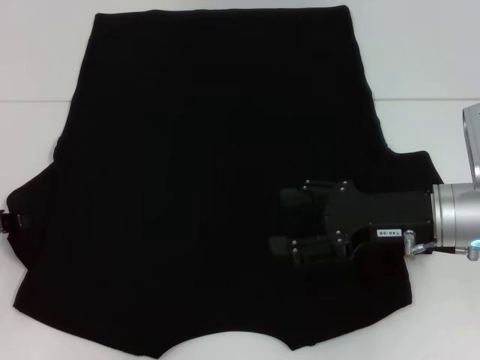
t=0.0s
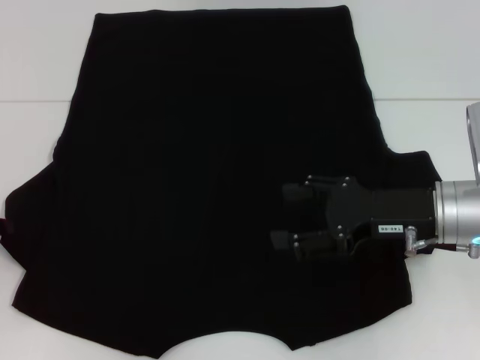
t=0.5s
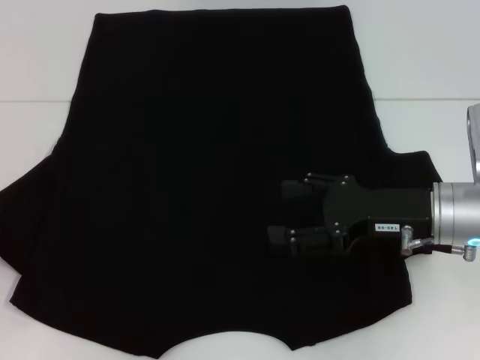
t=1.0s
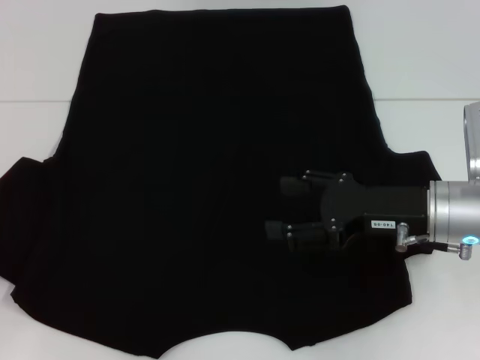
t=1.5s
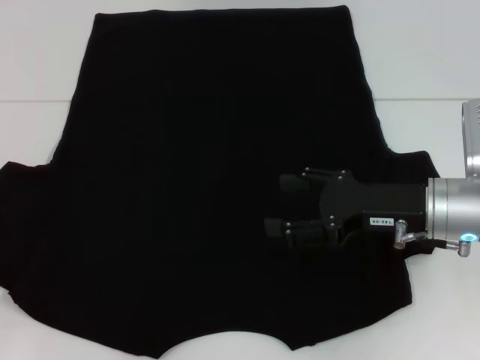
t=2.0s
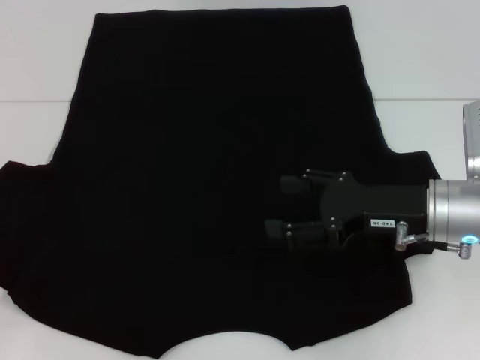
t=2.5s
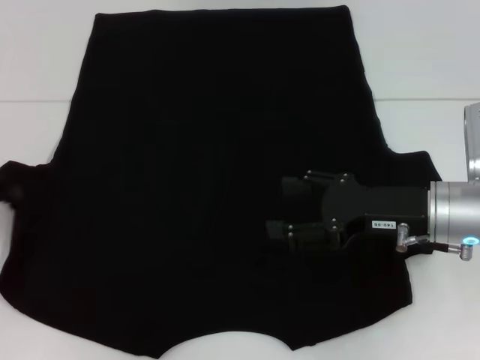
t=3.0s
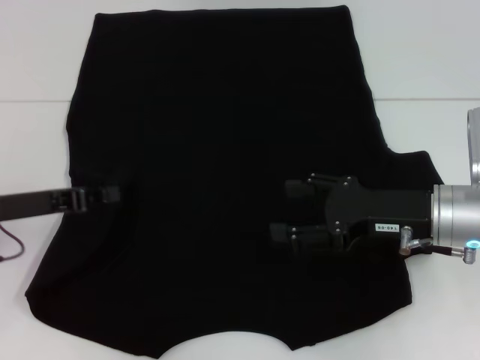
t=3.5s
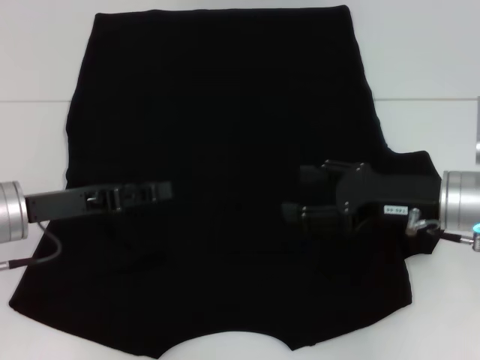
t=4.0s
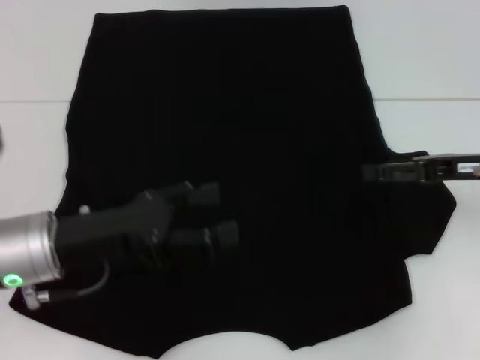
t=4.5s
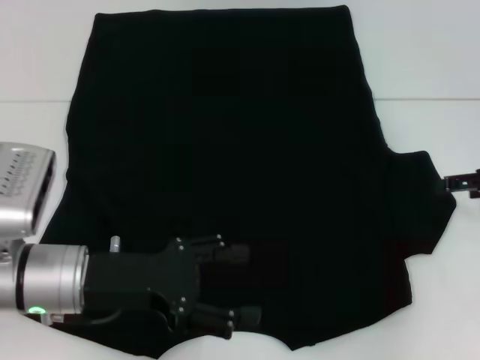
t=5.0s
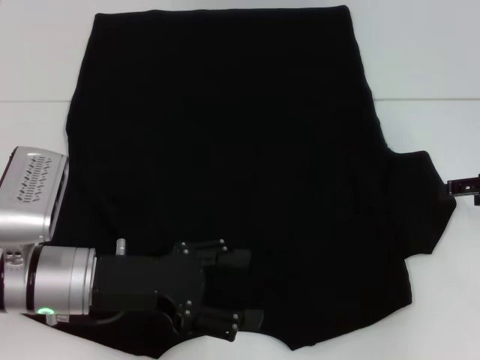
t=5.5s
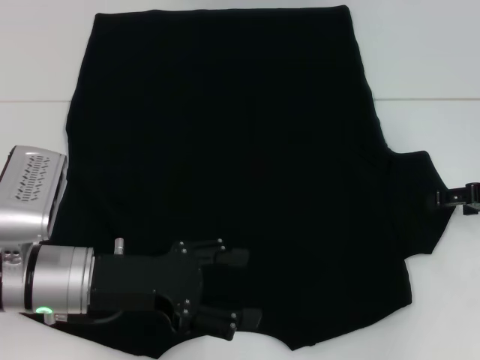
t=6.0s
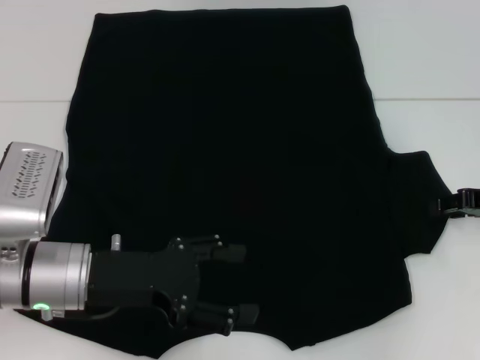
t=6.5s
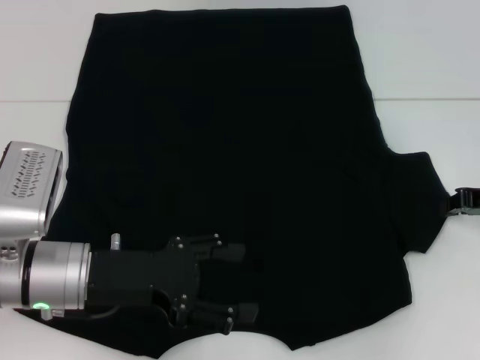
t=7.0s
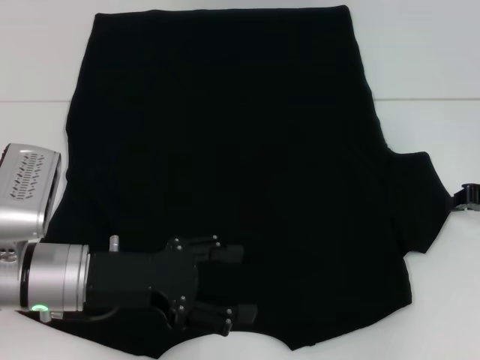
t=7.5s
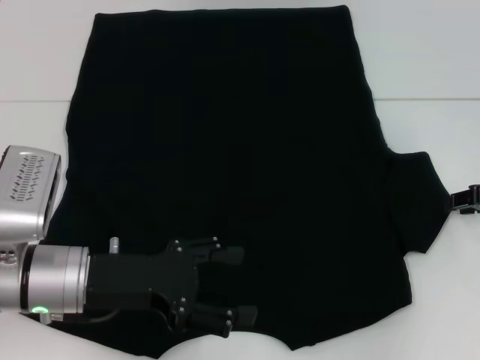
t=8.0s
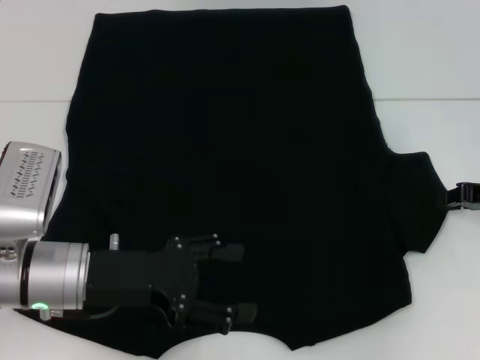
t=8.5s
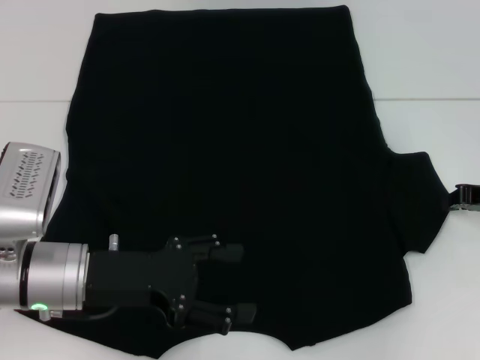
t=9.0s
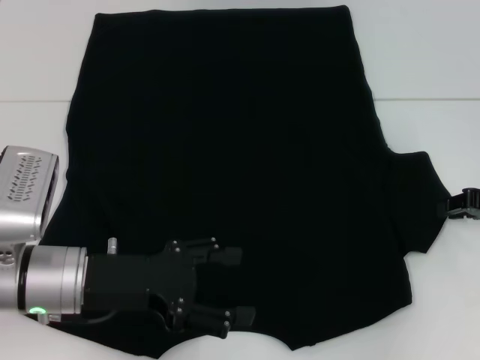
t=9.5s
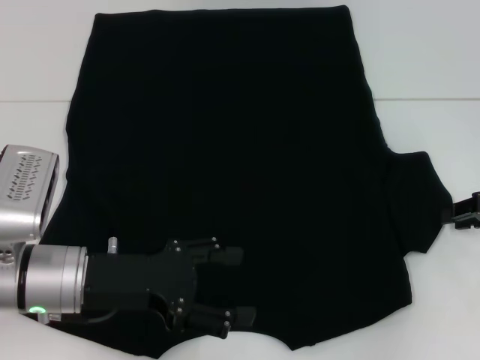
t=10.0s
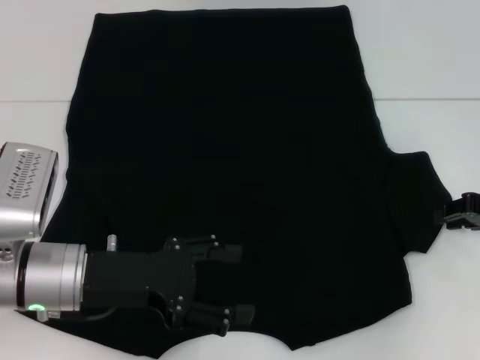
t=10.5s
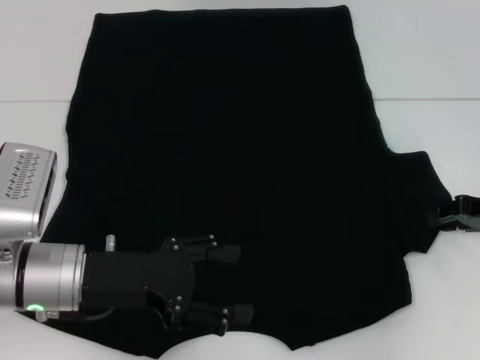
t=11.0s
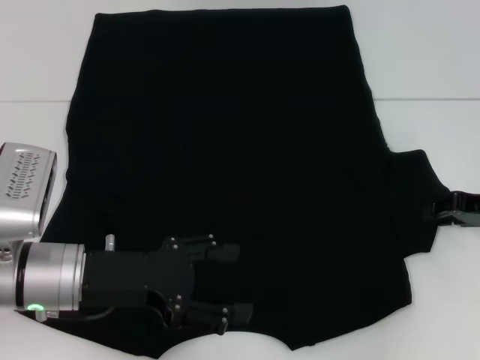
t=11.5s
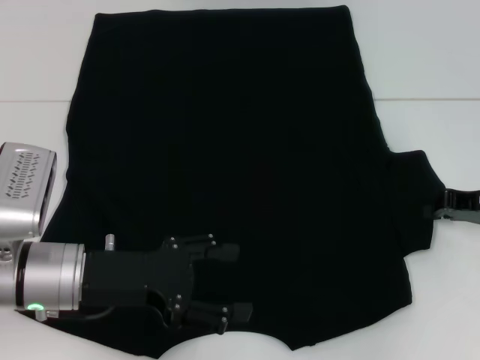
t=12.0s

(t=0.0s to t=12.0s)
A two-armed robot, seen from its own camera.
Step, t=0.0s - t=3.5s: Fold the bottom left sleeve with your left hand.
t=0.0s - t=2.0s: The left gripper shifts by roughly 5 cm, and closes up.
t=2.0s - t=4.0s: The left gripper moves to the right, roughly 15 cm.
t=4.0s - t=6.0s: The right gripper is displaced to the right by roughly 10 cm; the left gripper is displaced to the right by approximately 5 cm, and opens up.
t=6.0s - t=8.0s: The right gripper closes its fingers.
t=8.0s - t=12.0s: There are only small adjustments of the grippers.

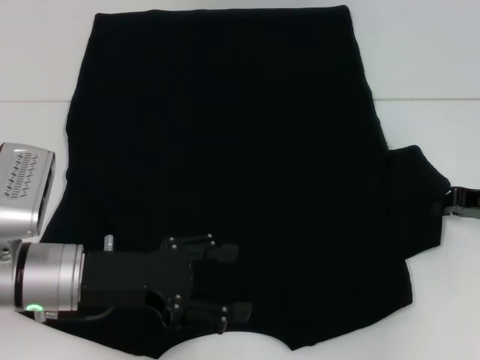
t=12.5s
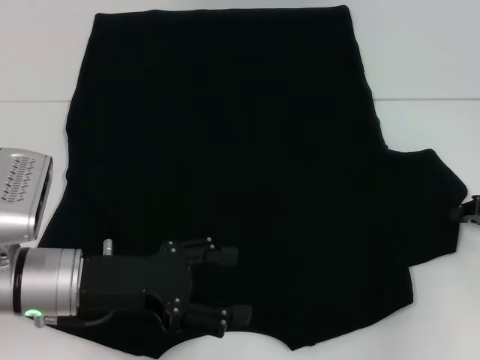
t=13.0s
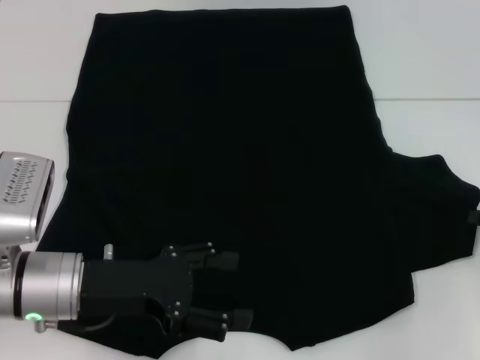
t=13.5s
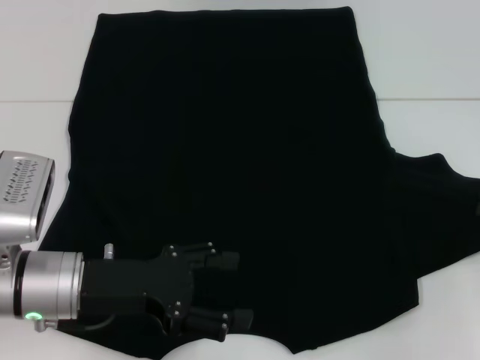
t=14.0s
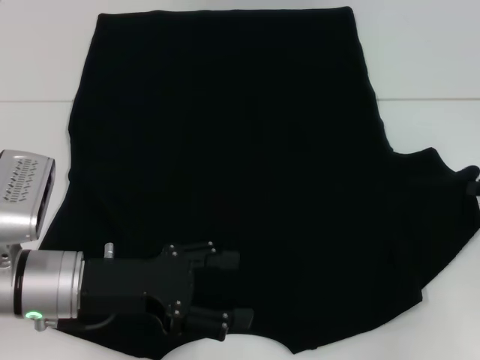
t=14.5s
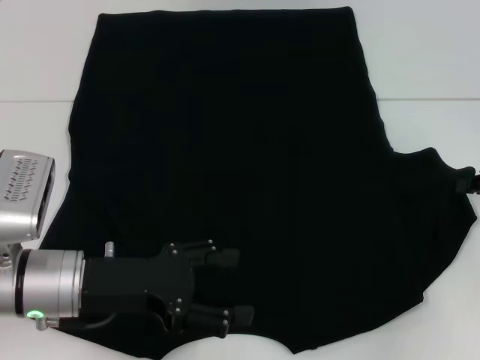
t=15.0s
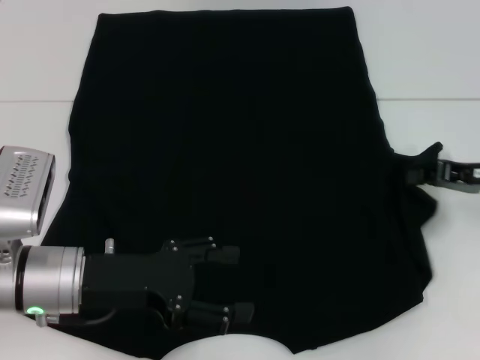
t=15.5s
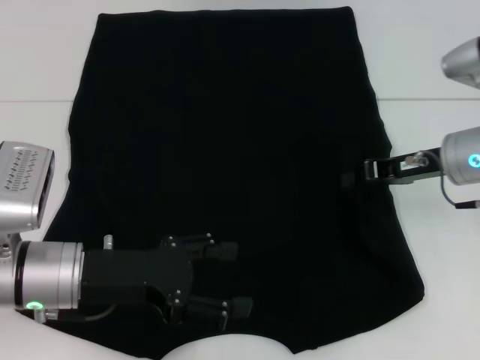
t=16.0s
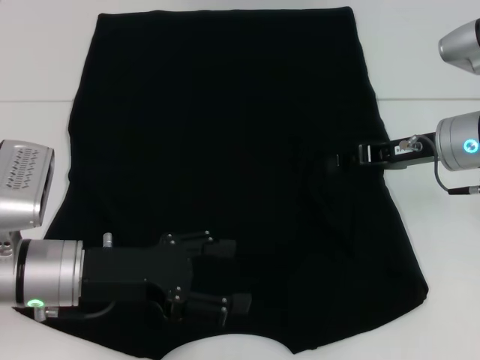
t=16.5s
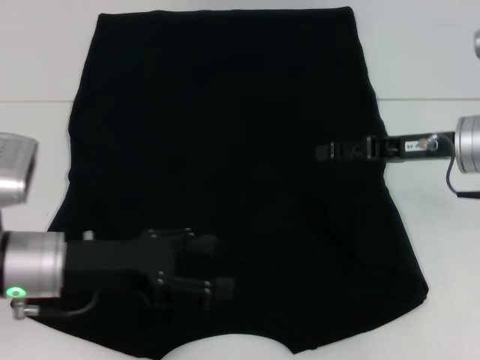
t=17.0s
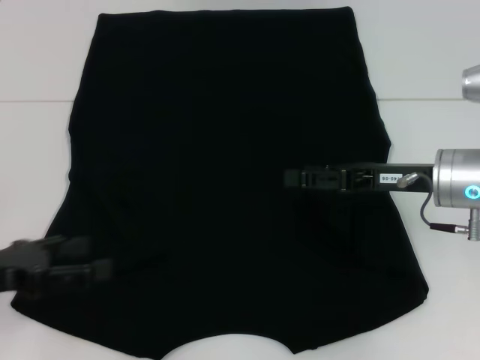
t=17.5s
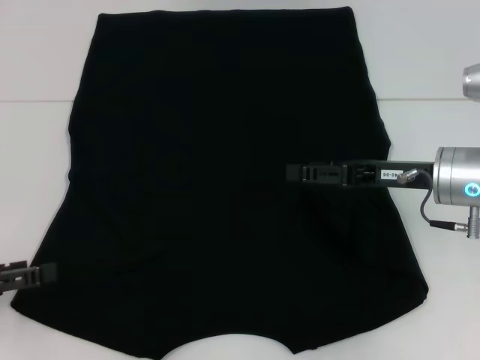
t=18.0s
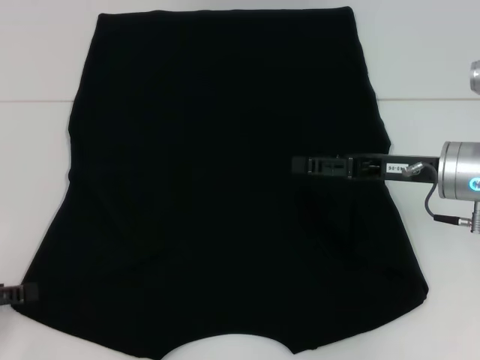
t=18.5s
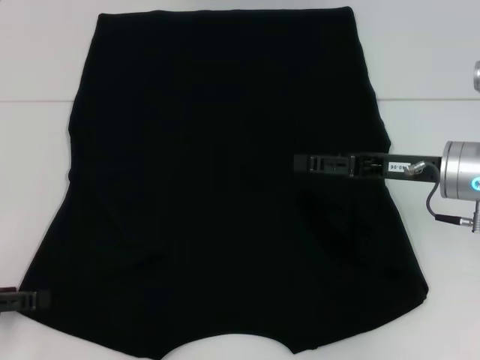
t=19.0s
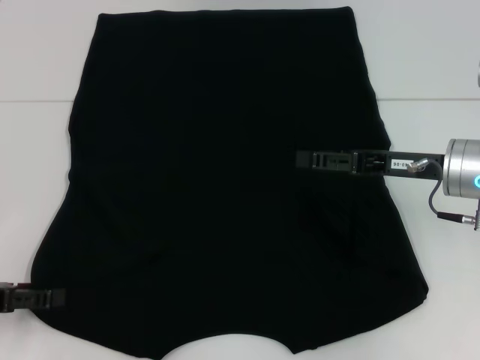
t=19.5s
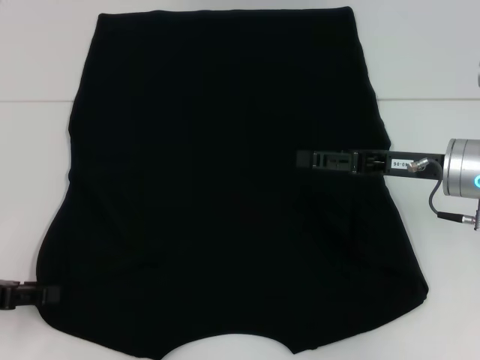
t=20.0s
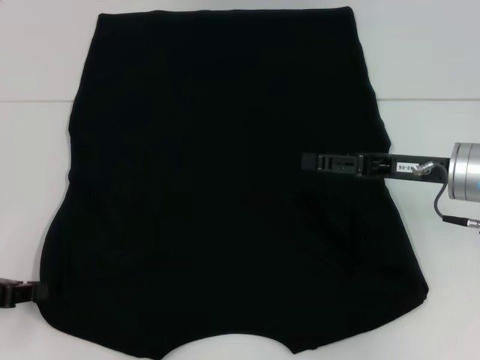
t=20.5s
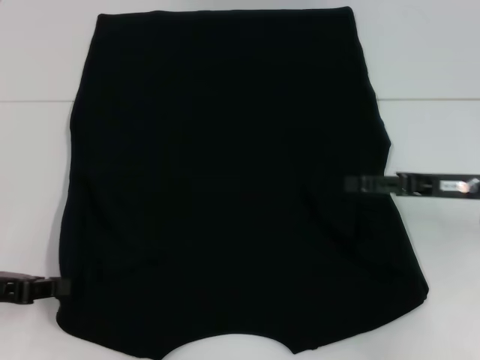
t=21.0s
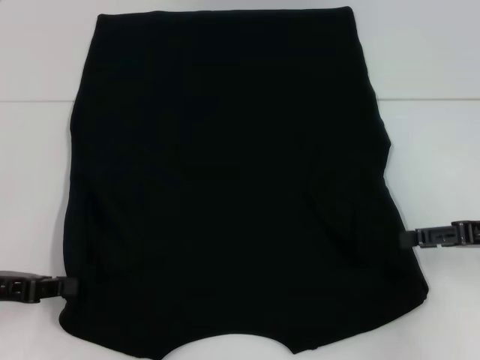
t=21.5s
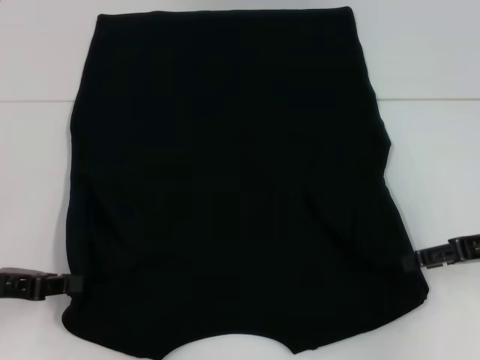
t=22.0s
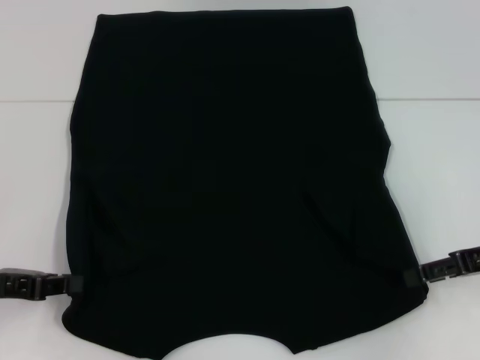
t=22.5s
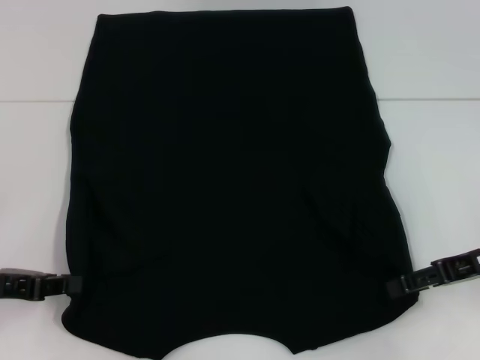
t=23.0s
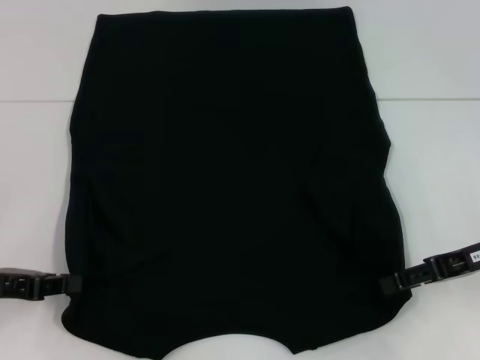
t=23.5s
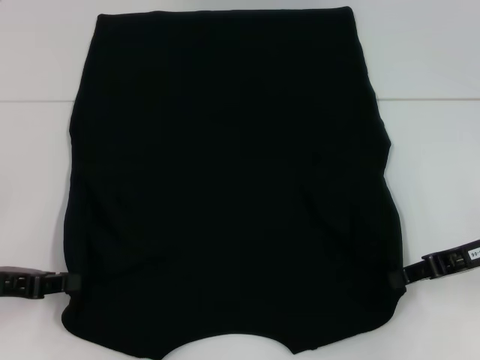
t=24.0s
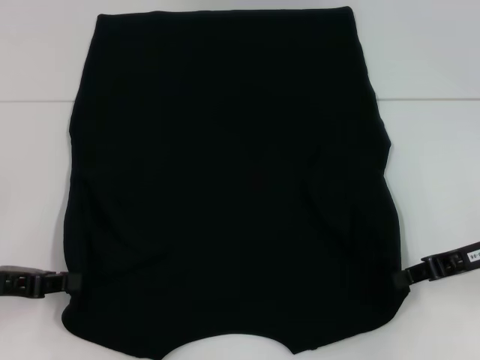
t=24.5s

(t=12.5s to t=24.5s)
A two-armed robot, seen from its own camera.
Step, t=12.5s - t=16.5s: Fold the bottom right sleeve with your right hand.
Step, t=17.0s - t=20.5s: Grab the bottom left corner with your left hand.
t=14.5s - t=16.5s: The right gripper is displaced to the left by roughly 15 cm.
t=16.5s - t=18.5s: The left gripper goes about 15 cm to the left, while the right gripper opens up.
t=18.5s - t=20.5s: The left gripper closes its fingers.
t=20.5s - t=22.5s: The right gripper is displaced to the right by about 10 cm.
t=22.5s - t=24.5s: The right gripper closes.

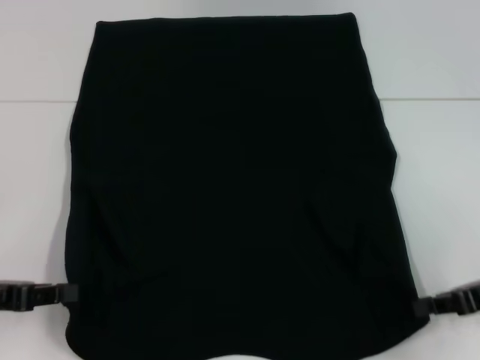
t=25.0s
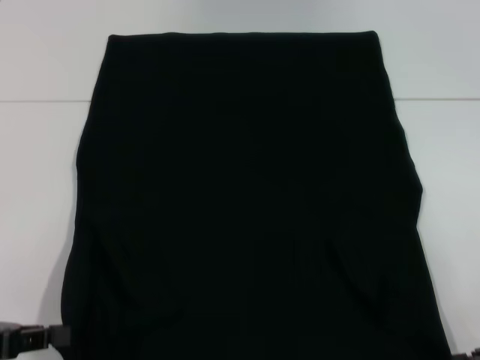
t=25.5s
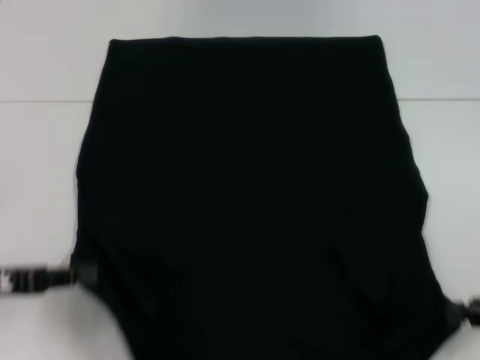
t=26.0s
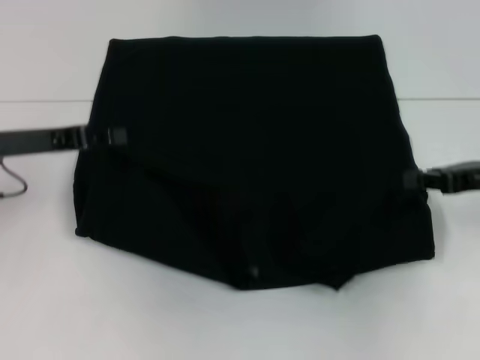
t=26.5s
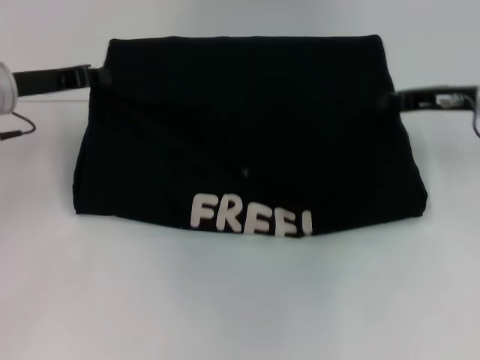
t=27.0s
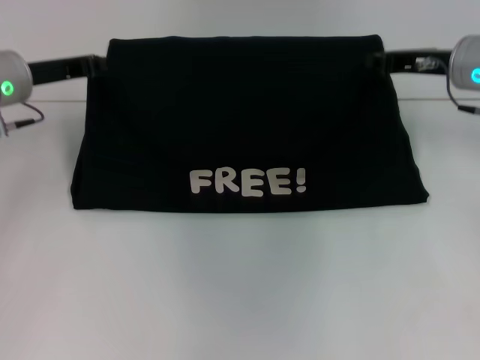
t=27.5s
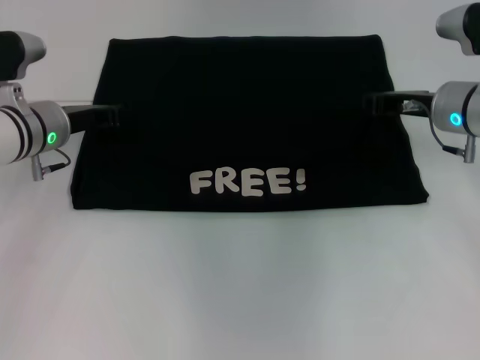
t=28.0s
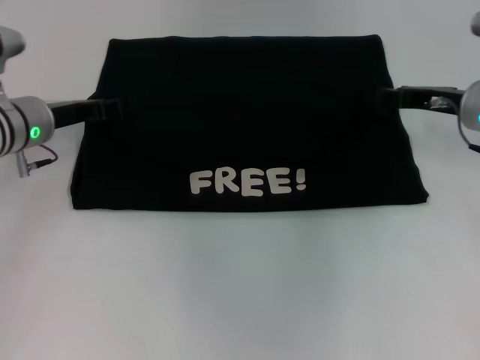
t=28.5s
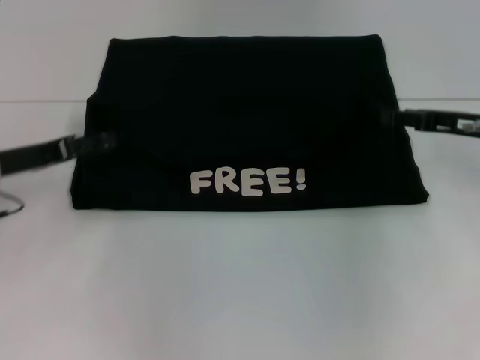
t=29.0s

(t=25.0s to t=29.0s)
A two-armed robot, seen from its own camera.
Step, t=25.0s - t=28.5s: Fold the clothes with your left hand.
Step, t=25.0s - t=28.5s: Fold the clothes with your right hand.
t=25.0s - t=27.0s: The left gripper is displaced forward by roughly 20 cm; the right gripper travels forward and upward by about 15 cm.
t=27.0s - t=29.0s: The left gripper goes some 10 cm backward and downward, and opens up, while the right gripper opens.
